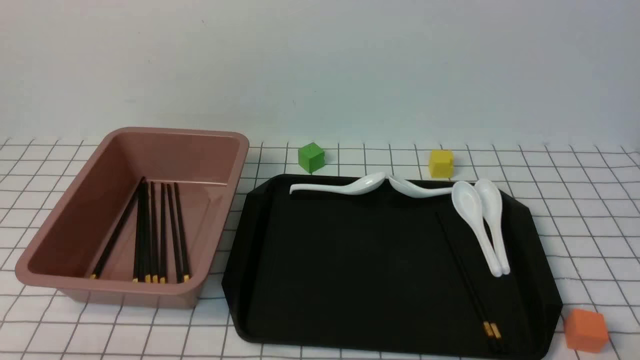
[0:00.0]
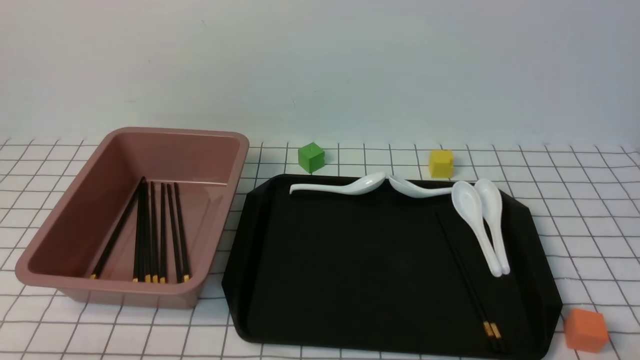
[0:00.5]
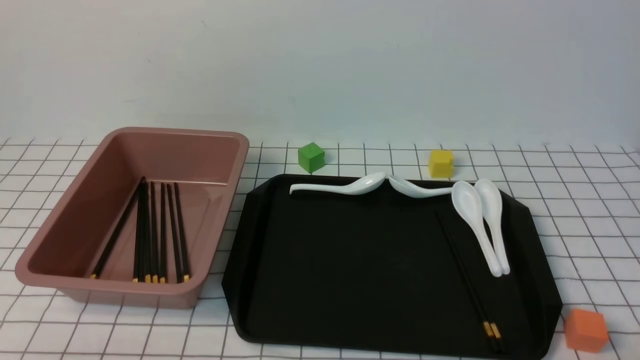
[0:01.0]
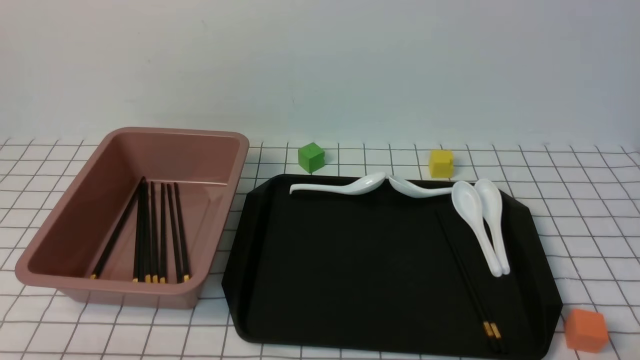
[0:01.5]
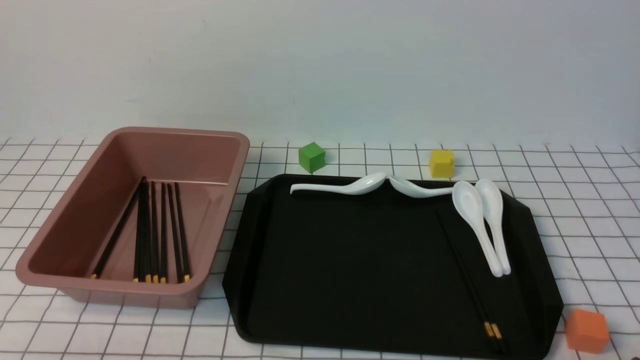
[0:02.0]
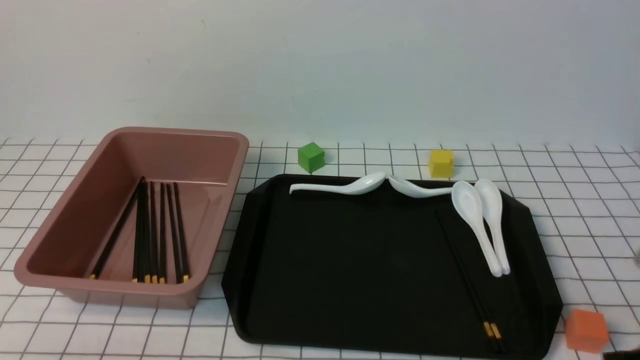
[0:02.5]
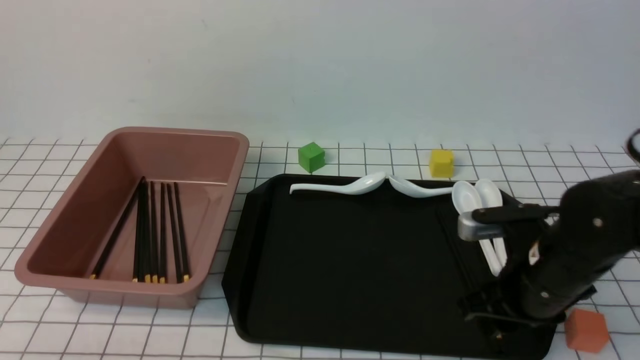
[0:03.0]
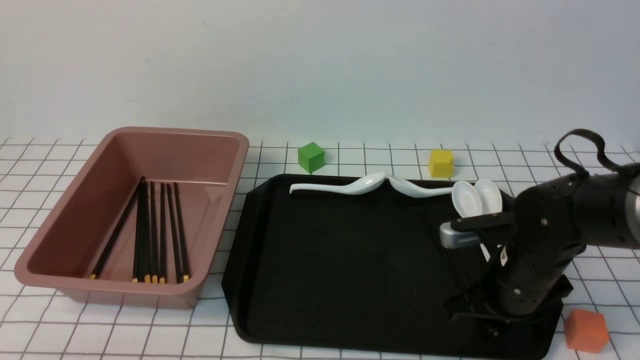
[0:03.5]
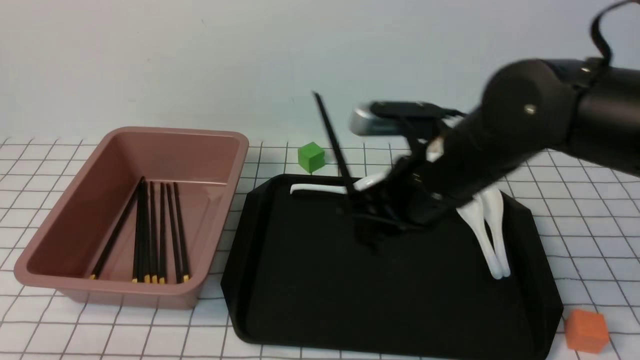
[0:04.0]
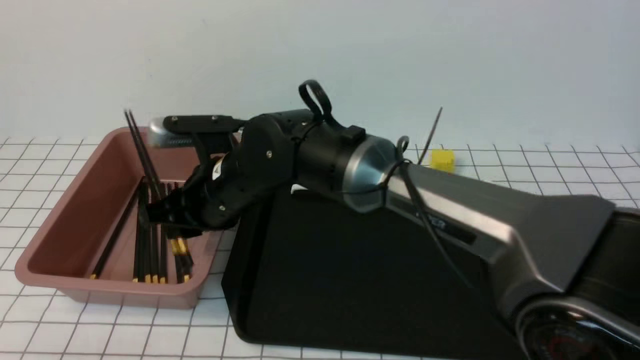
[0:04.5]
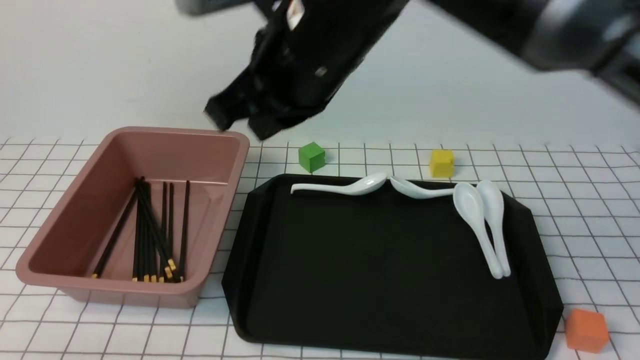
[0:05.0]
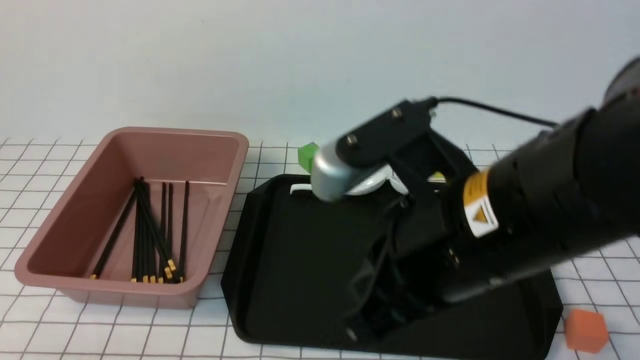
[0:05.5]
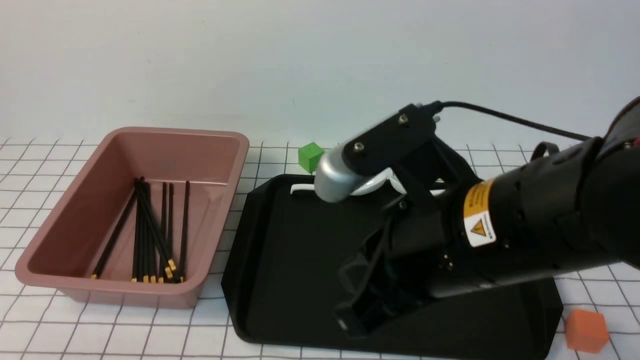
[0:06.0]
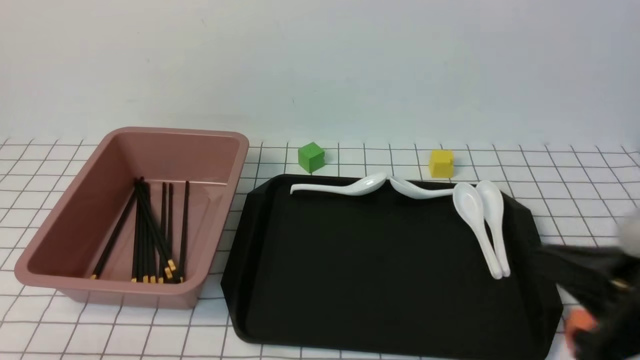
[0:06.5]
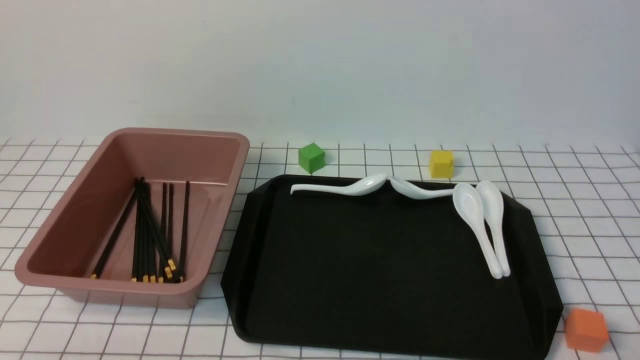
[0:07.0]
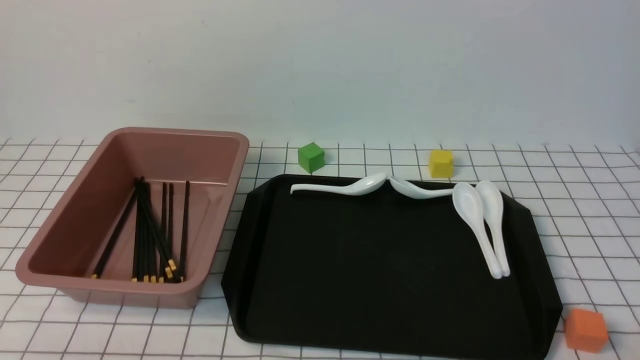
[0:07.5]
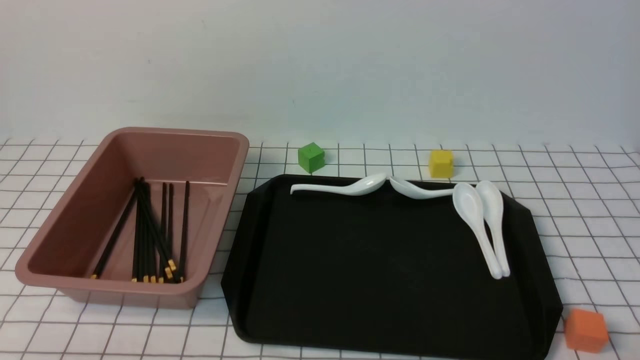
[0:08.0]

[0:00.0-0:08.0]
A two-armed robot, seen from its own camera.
Step, 0:00.0 to 0:03.5: use the right arm to grab a pair of chopsticks.
Step, 0:04.0 to 0:04.5: use the right arm to put the chopsticks into the lunch box.
0:02.0 to 0:04.0: The right gripper moves forward and to the left, roughly 30 cm.
0:04.0 to 0:06.0: The right gripper shifts roughly 15 cm backward and upward, goes to the left and returns, approximately 20 cm each way, and closes its fingers.
0:06.0 to 0:08.0: The right gripper moves to the right, downward and backward, some 30 cm.

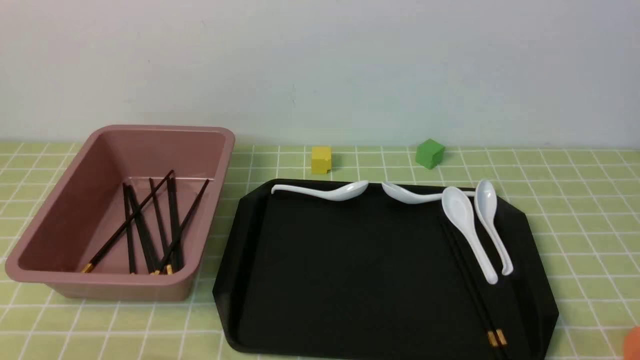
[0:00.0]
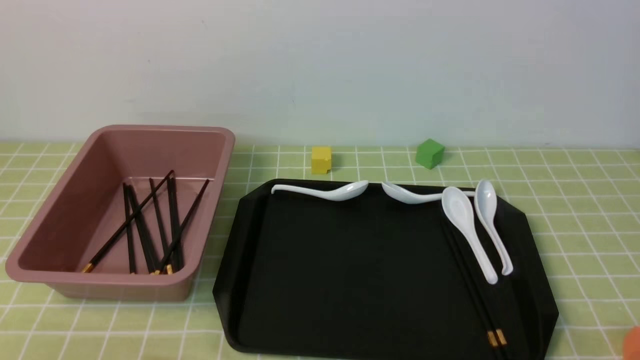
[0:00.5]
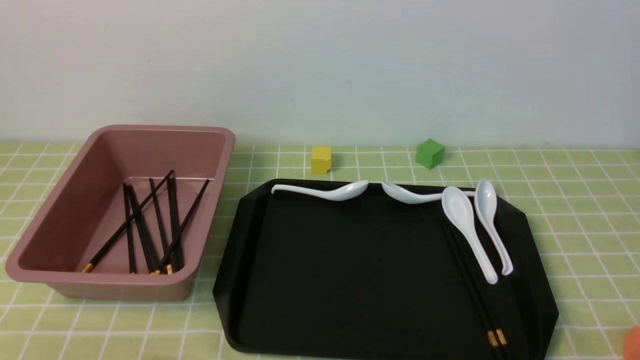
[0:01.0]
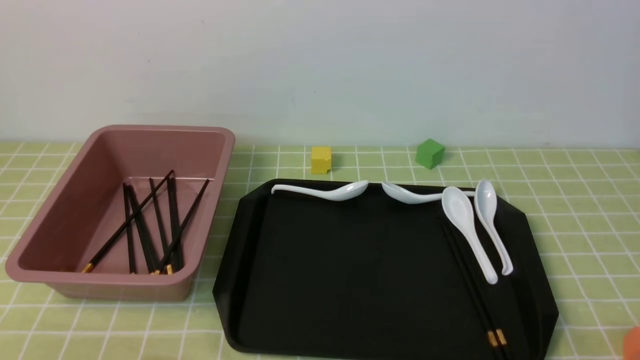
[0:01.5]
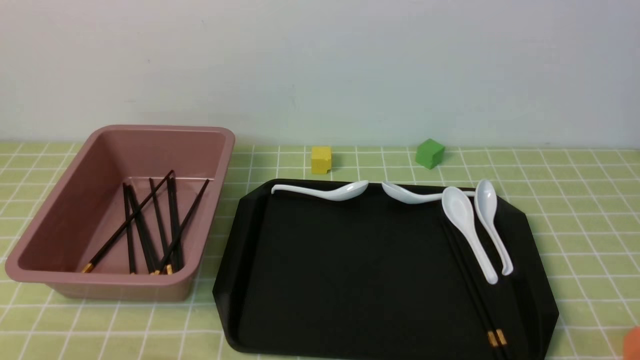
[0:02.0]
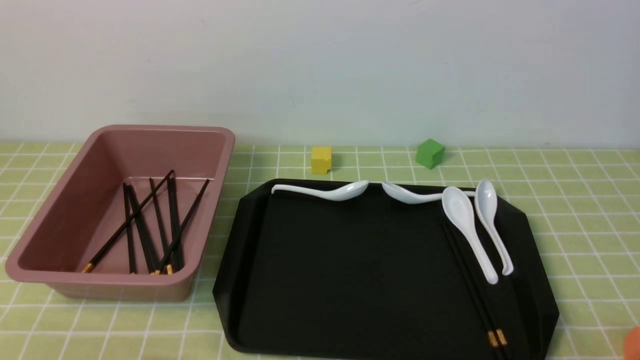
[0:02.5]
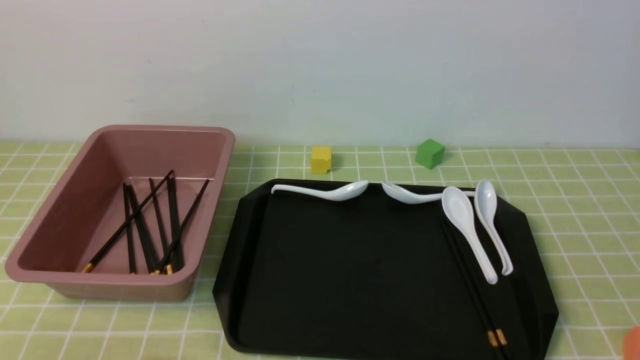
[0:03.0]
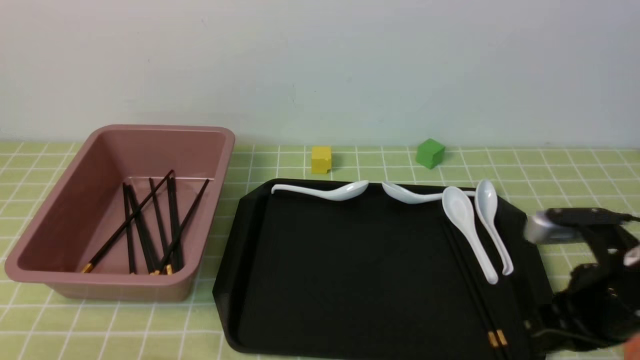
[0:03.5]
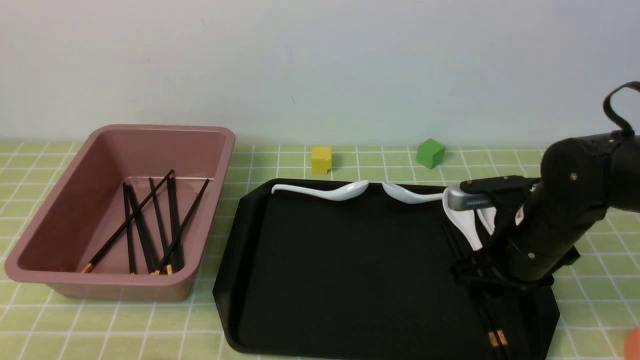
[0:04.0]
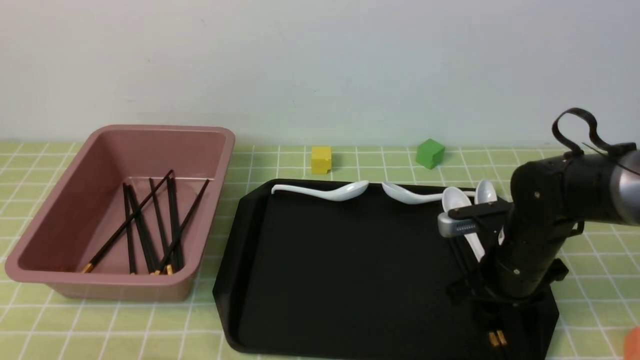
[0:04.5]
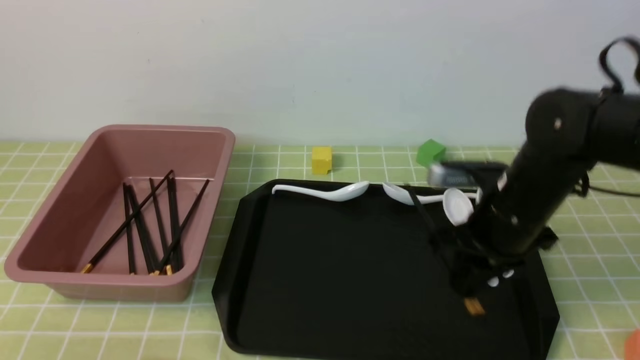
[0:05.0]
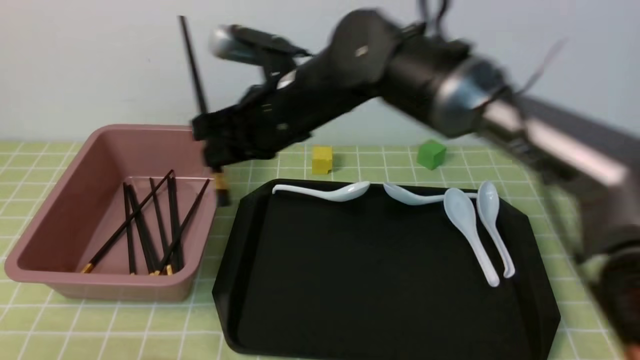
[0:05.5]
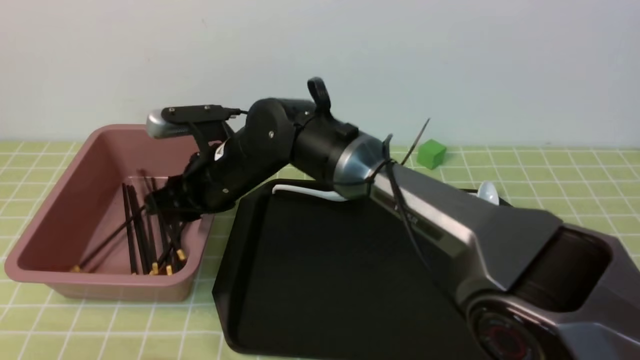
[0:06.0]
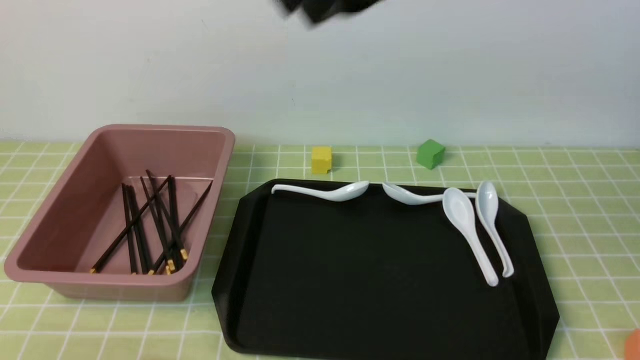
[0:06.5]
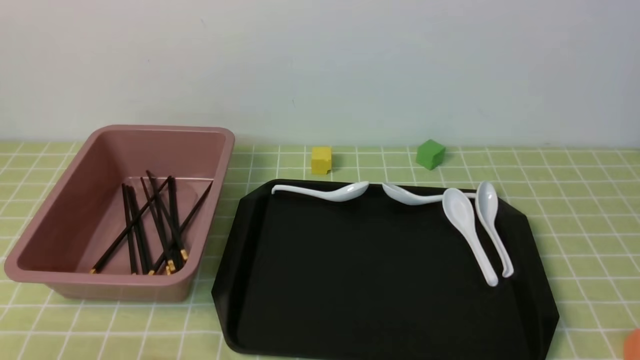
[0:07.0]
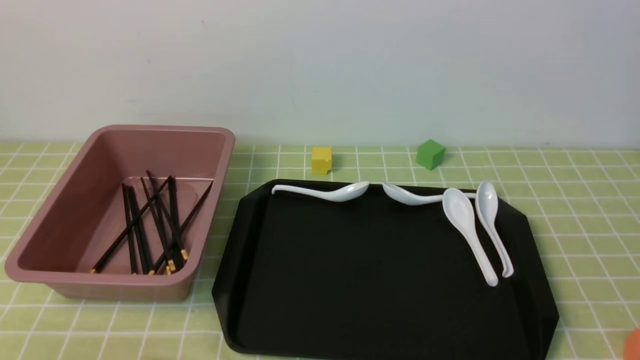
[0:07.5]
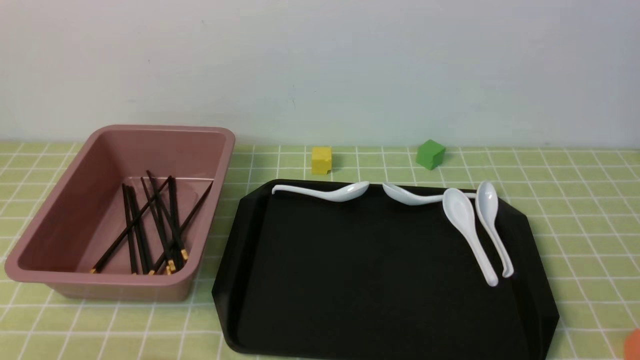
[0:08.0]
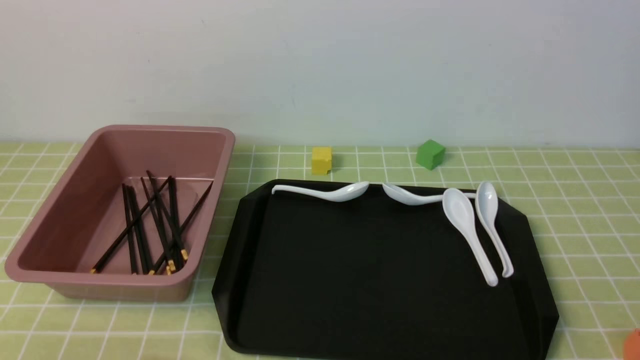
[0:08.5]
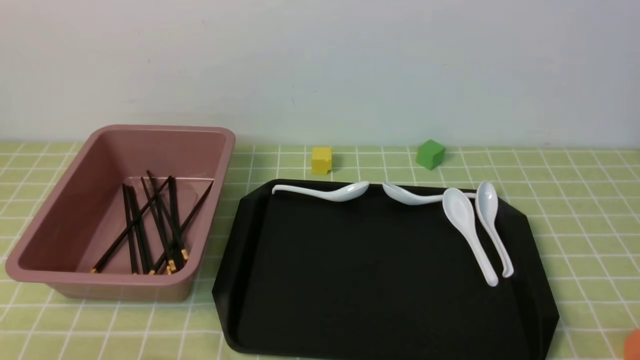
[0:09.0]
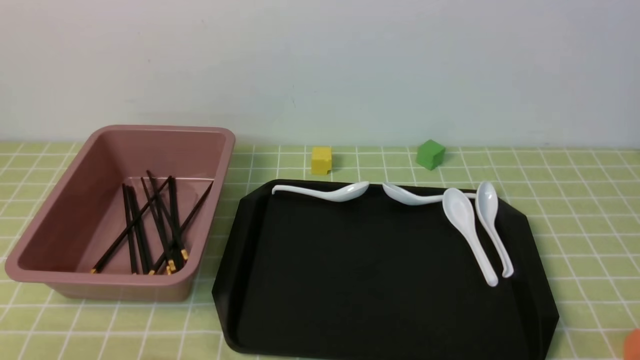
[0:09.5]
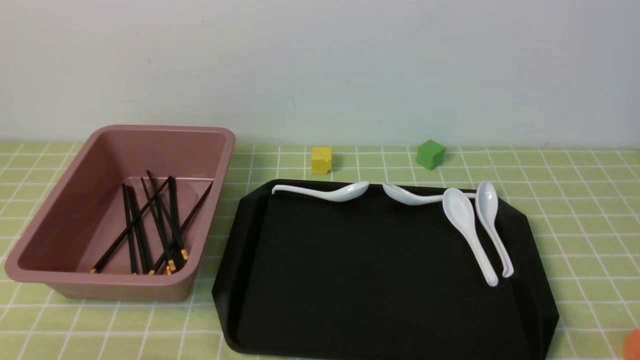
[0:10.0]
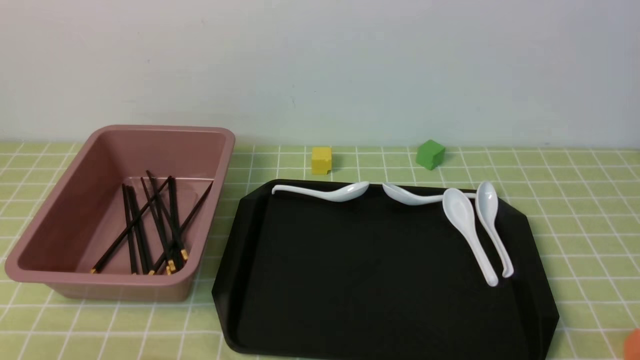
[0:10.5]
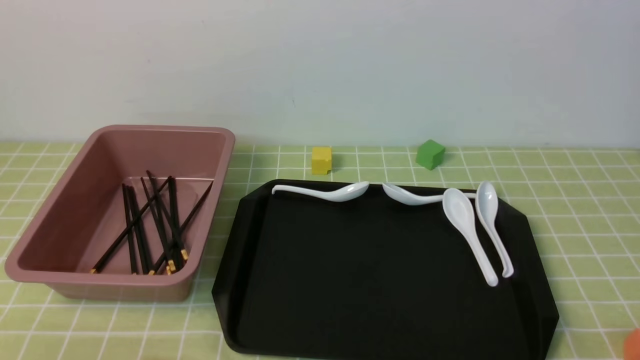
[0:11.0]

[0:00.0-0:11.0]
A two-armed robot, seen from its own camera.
Step, 0:00.0 to 0:05.0: use the right arm to grab a pair of chopsticks.
Step, 0:05.5 to 0:06.0: use the right arm to put the chopsticks into the lunch box.
0:02.0 to 0:03.5: The right gripper is displaced forward by roughly 20 cm, and closes.
0:03.5 to 0:05.5: The right gripper heads to the left and forward, covering about 30 cm, and opens and closes again.
0:05.5 to 0:07.5: The right gripper moves backward and to the right, approximately 40 cm, and closes up.
0:09.0 to 0:11.0: The two grippers keep their place.
